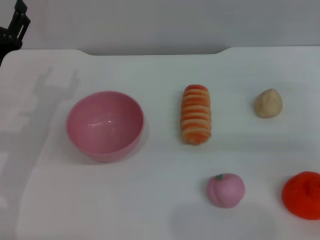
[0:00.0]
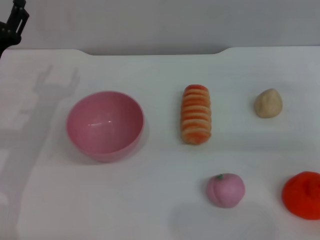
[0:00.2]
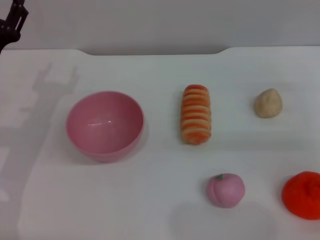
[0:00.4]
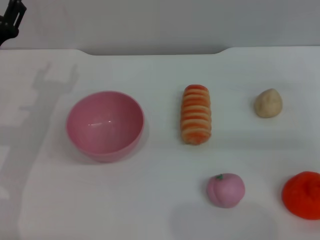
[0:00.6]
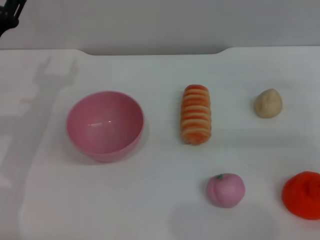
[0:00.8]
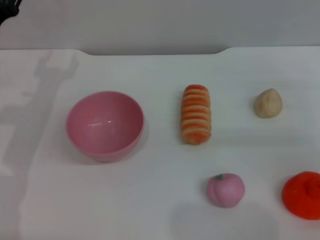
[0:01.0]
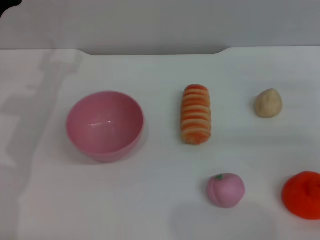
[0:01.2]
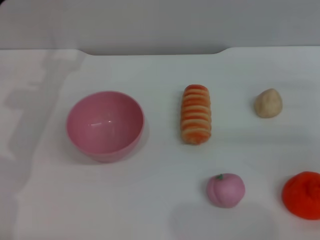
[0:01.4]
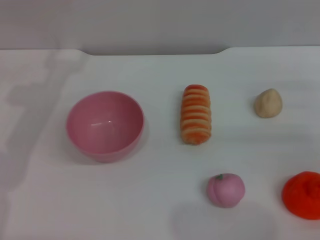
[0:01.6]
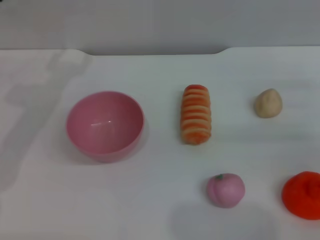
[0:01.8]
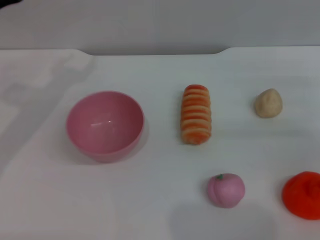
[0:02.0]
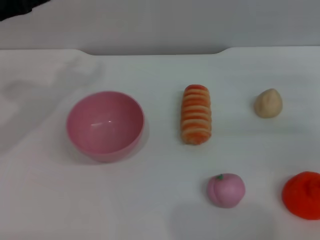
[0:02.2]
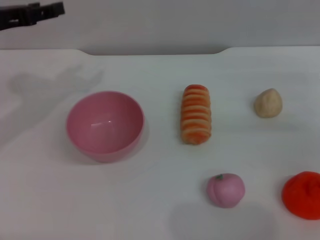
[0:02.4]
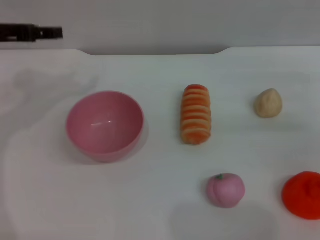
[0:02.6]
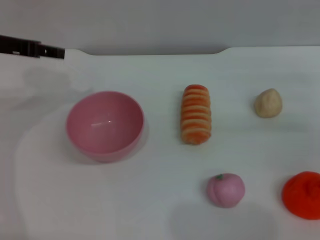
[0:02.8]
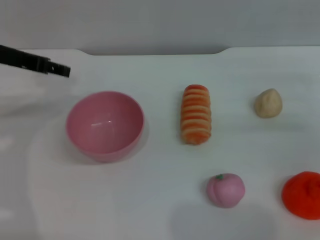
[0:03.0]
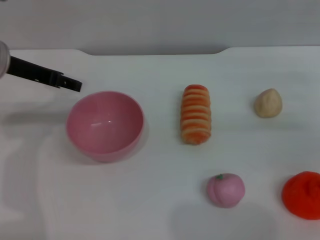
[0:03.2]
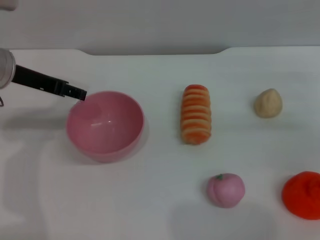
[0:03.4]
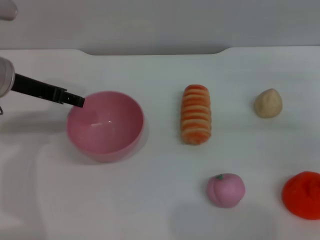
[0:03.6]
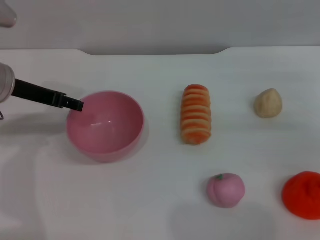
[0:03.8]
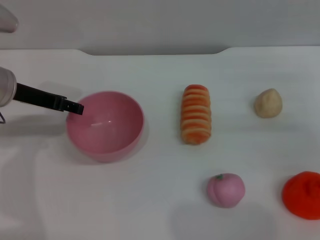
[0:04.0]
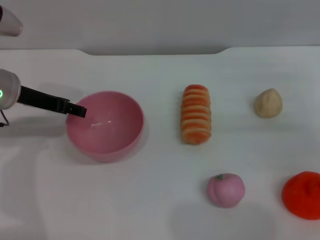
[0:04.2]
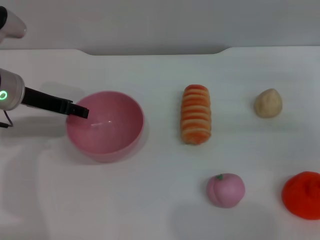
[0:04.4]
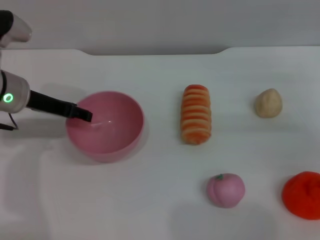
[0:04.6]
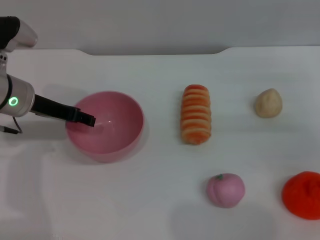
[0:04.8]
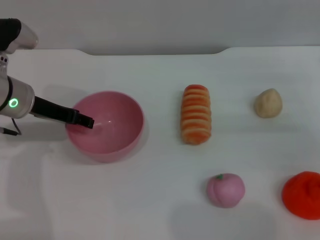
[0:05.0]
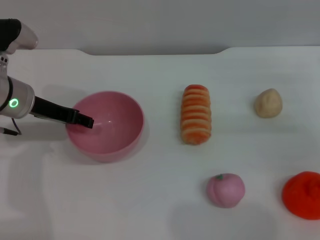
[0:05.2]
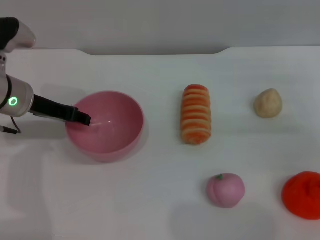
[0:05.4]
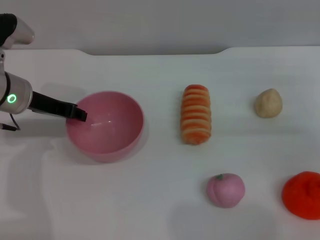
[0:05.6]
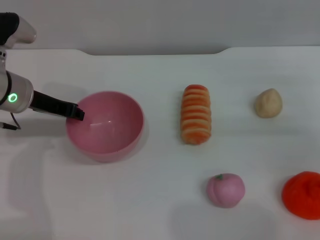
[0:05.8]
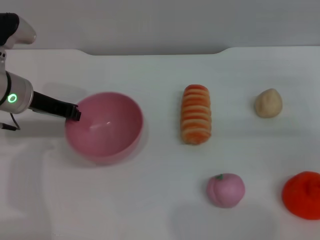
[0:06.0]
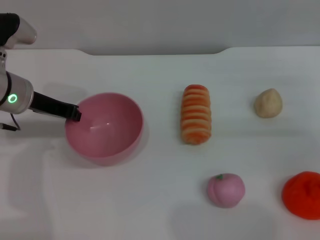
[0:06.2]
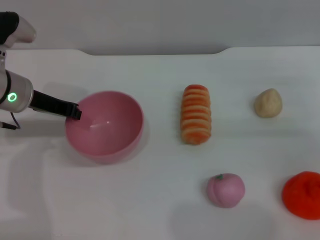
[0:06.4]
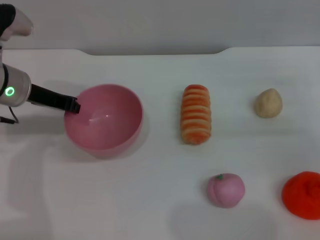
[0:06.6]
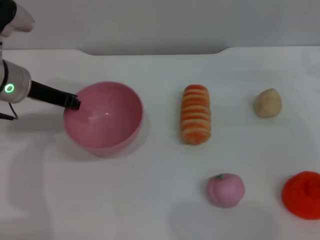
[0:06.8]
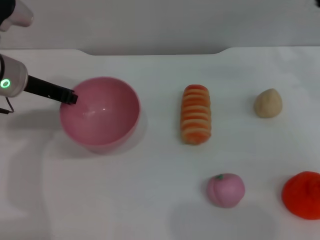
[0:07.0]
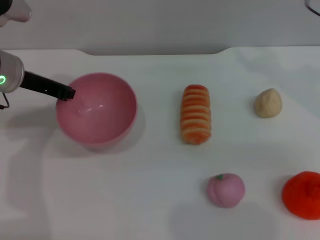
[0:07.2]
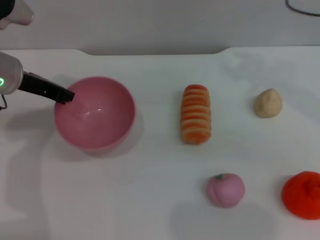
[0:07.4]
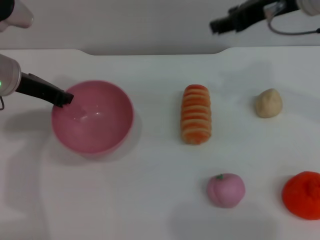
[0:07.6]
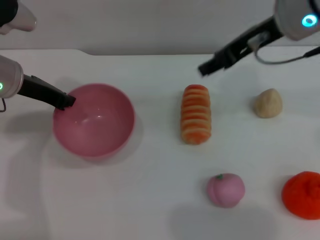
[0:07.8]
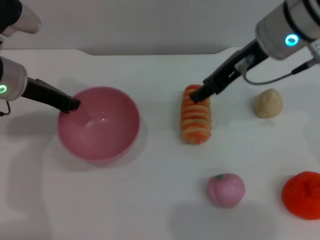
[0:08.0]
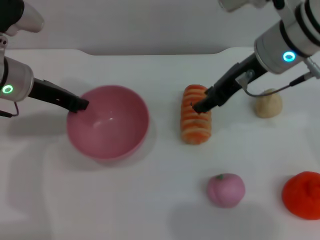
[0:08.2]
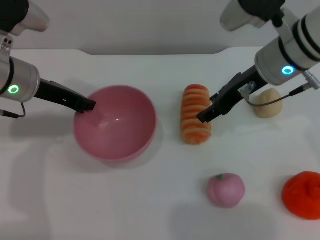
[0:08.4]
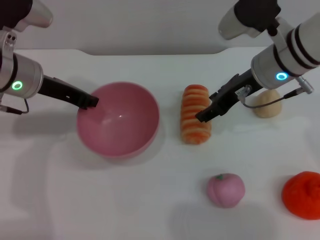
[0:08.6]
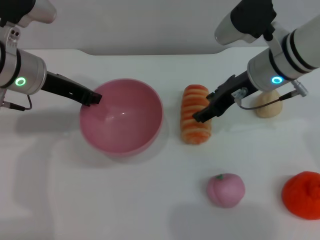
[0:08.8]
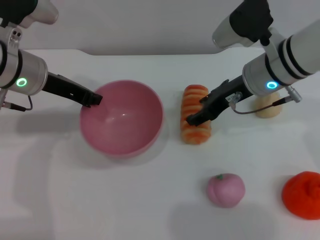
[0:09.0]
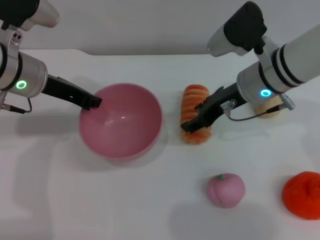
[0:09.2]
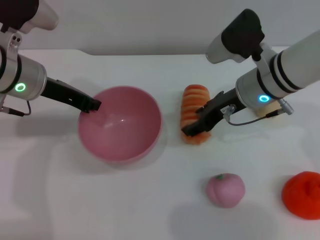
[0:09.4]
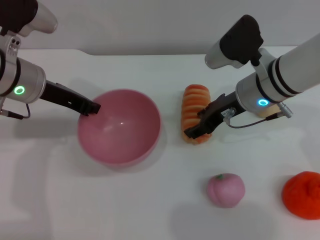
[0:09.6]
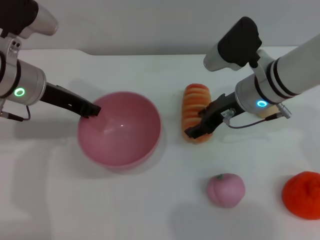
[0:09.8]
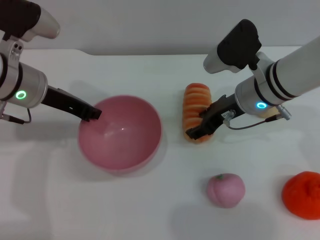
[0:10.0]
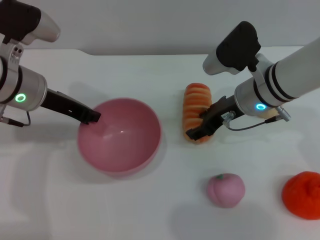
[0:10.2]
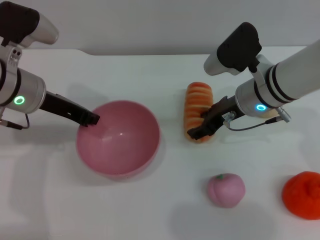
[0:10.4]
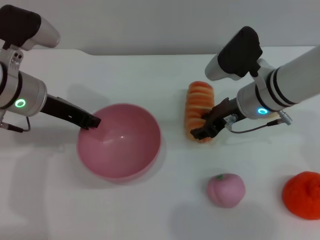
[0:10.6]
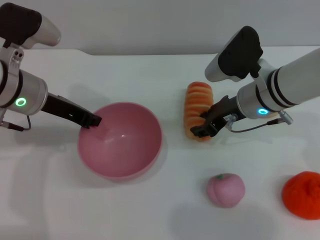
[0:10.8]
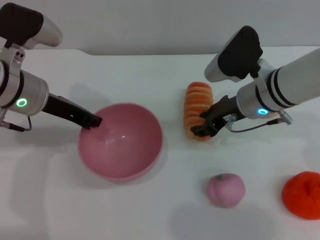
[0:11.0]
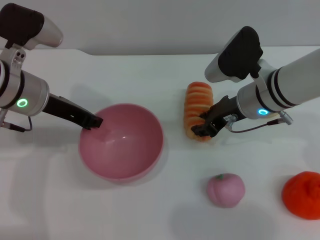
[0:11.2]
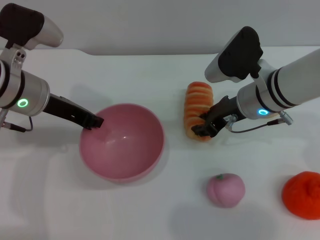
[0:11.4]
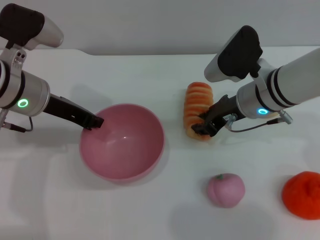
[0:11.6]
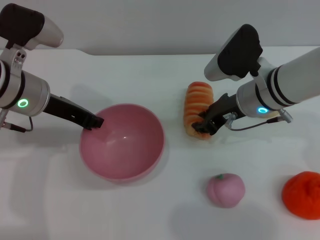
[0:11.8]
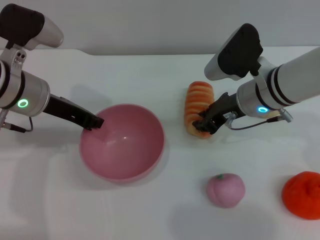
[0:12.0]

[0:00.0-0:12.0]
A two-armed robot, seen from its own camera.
Task of the whole recording: put the bread into the pink bowl and pour it out repeatedly.
Step, 0:00.0 to 0:09.2: Pick up the bowl with the left gripper.
0:00.0 to 0:01.6: The left gripper goes approximately 10 cm upward and forward.
0:03.0 to 0:04.4: The left gripper goes approximately 5 cm downward.
0:04.4 to 0:06.0: The left gripper closes its fingers.
0:06.0 to 0:07.6: The right gripper travels to the left and upward by roughly 25 cm.
0:07.6 to 0:09.0: The right gripper travels downward by some 15 cm.
0:10.4 to 0:12.0: The right gripper closes up.

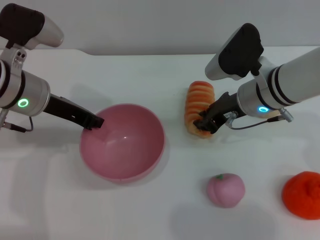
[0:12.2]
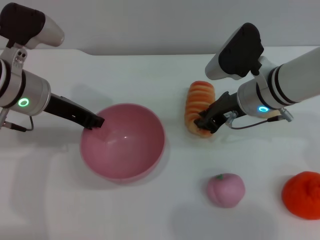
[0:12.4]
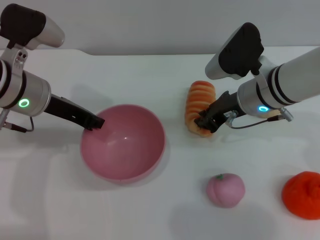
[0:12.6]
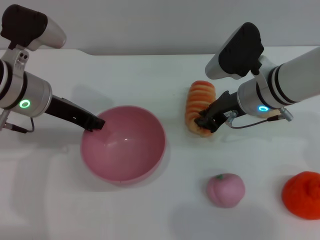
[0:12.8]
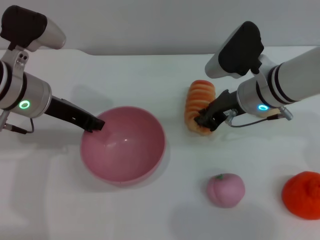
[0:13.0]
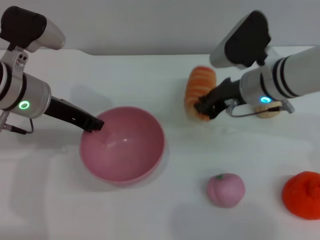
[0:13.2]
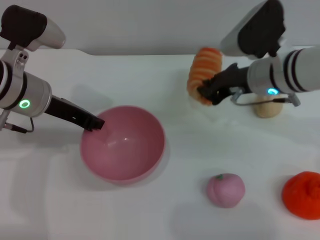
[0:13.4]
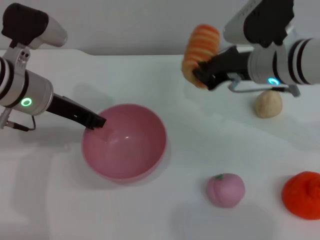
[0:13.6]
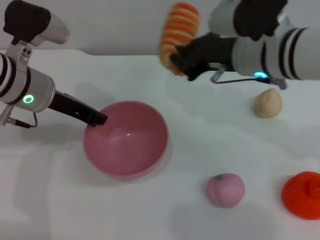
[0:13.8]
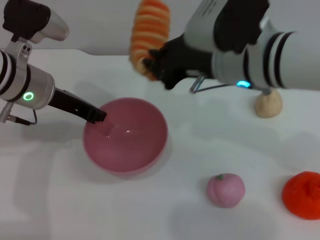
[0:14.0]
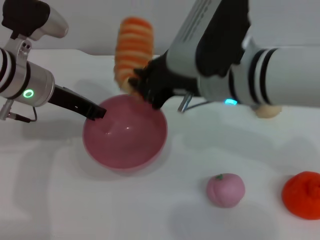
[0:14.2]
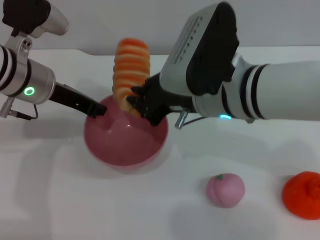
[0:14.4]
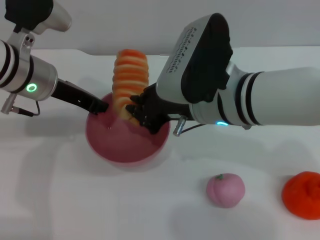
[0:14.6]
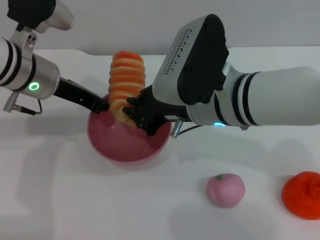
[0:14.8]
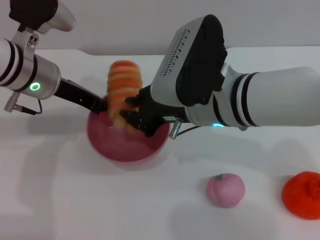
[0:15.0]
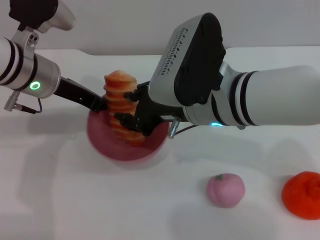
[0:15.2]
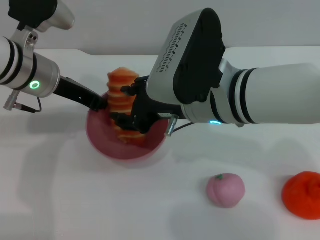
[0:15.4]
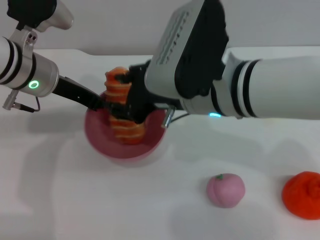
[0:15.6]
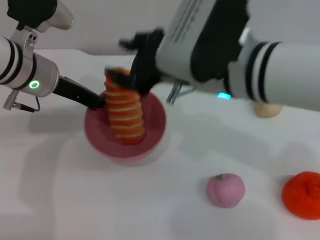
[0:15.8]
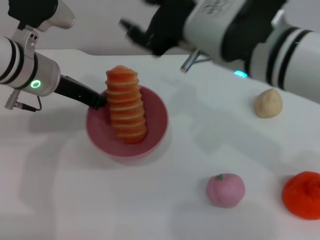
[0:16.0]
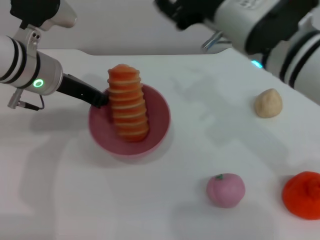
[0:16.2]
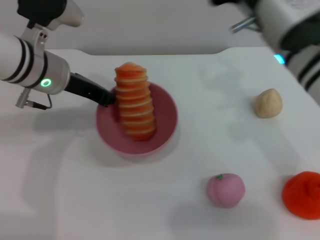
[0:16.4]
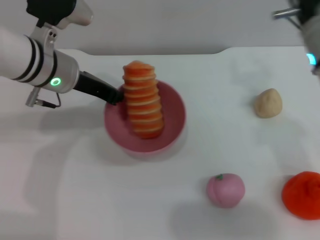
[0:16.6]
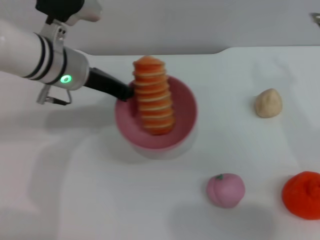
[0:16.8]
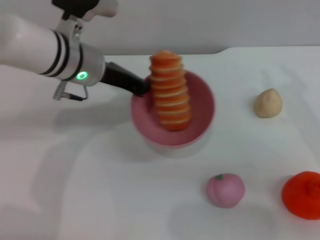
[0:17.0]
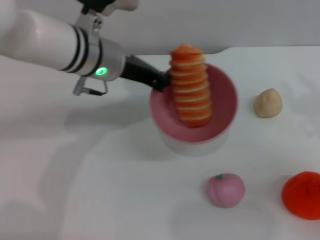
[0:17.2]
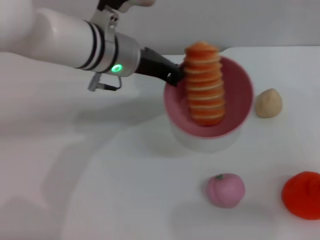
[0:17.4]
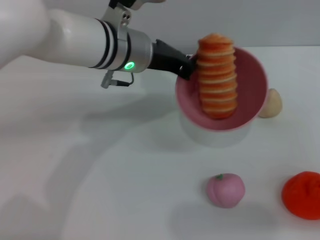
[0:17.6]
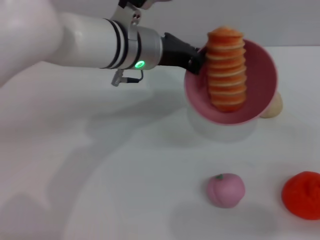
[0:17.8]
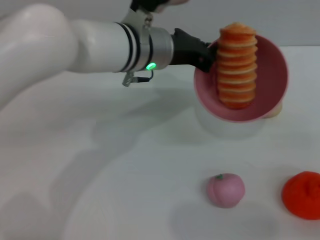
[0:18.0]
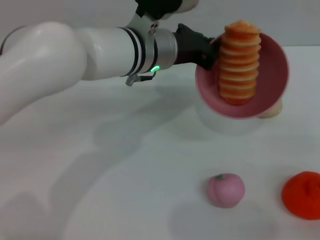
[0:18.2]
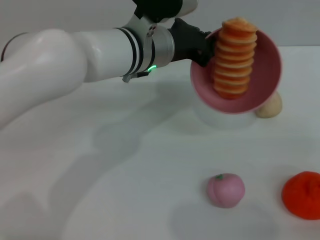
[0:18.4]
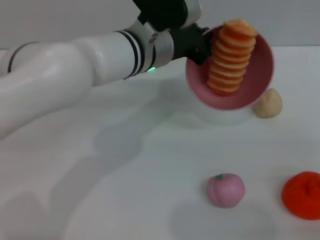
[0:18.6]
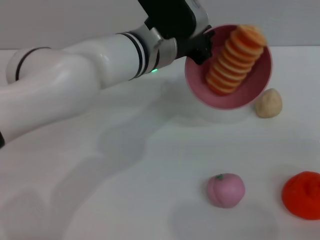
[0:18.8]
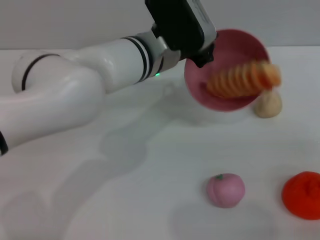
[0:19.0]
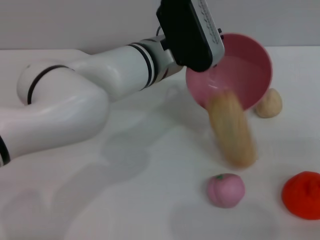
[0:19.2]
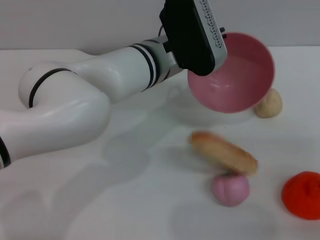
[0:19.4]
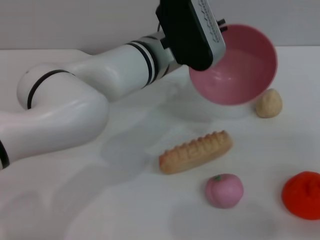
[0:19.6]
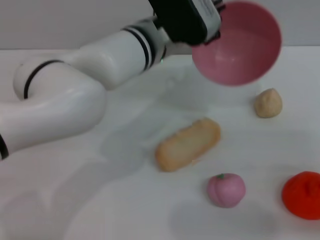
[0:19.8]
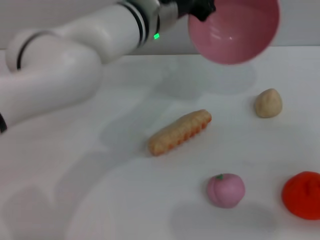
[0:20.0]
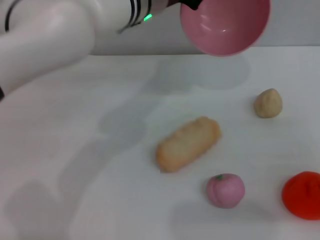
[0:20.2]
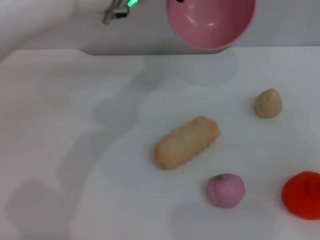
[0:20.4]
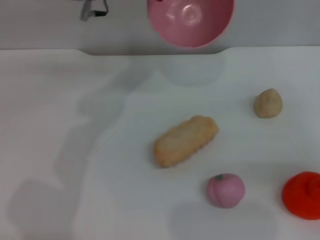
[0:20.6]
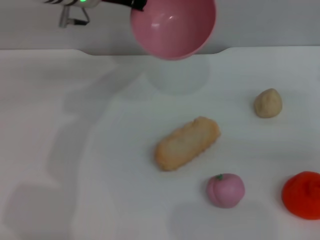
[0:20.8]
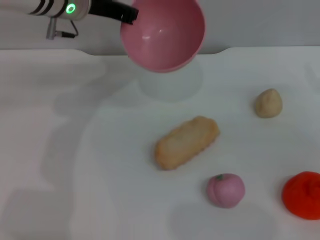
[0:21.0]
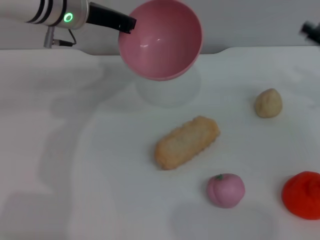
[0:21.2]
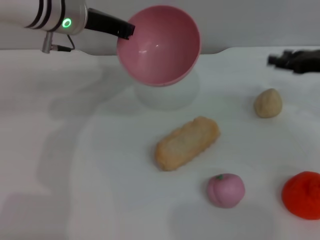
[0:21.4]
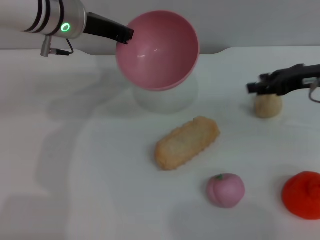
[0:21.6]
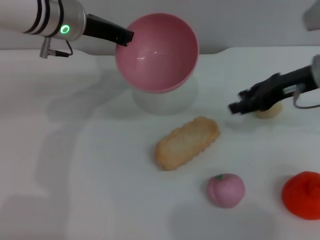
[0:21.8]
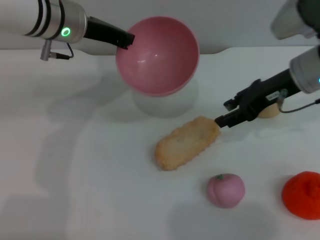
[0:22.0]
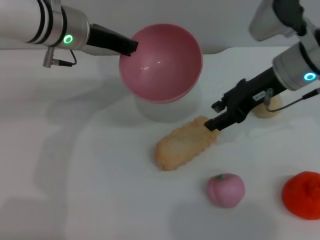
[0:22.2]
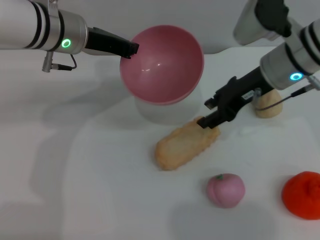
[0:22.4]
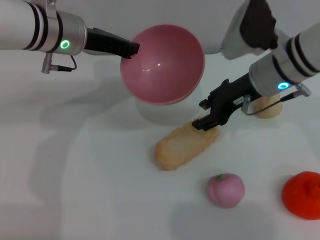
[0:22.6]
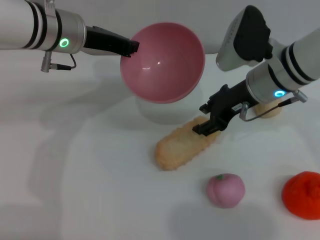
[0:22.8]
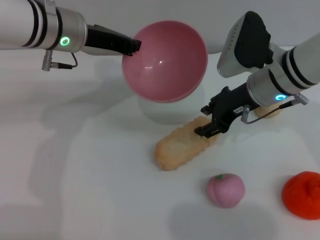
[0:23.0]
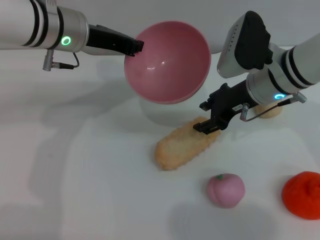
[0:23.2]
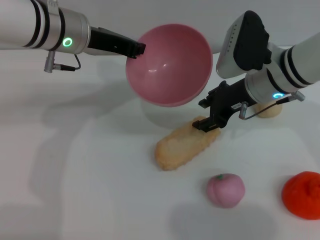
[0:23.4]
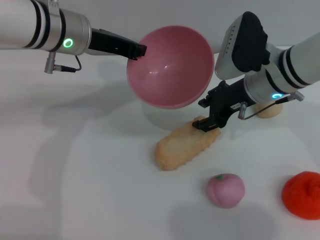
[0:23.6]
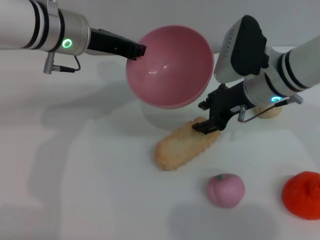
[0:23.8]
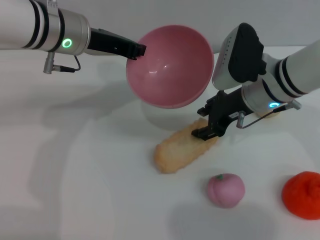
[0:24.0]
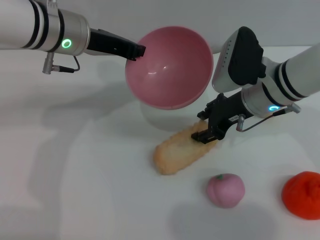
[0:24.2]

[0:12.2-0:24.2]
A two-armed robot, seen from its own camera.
Task of the whole recording: put the bread into the pink bowl and pour it out repeatedly.
Step, 0:13.6 to 0:17.2: Place the bread into the bowl.
Step, 0:17.6 to 0:19.8: Pour the bread out of the bowl.
0:12.2 to 0:13.8: The right gripper is displaced upward by about 10 cm.
0:13.8 to 0:15.2: The right gripper moves to the left and backward, some 10 cm, and opens.
0:15.2 to 0:16.6: The right gripper travels to the right by about 10 cm.
0:16.6 to 0:18.2: The left gripper shifts roughly 15 cm to the right. Meanwhile the right gripper is displaced to the right and backward by some 25 cm.
0:19.8 to 0:21.2: The left gripper is displaced to the left and forward by approximately 15 cm. The right gripper goes roughly 15 cm forward.
0:21.2 to 0:22.6: The right gripper moves to the left, about 20 cm.
0:22.6 to 0:24.2: The grippers move only a little.
